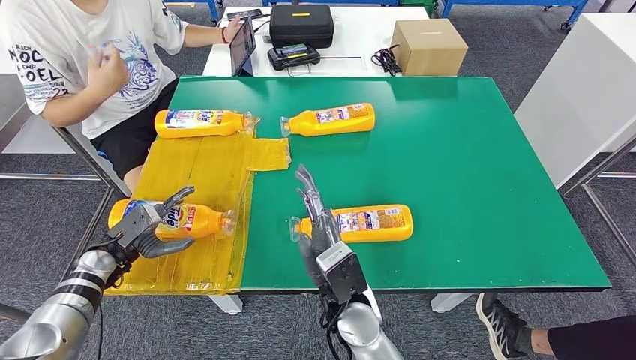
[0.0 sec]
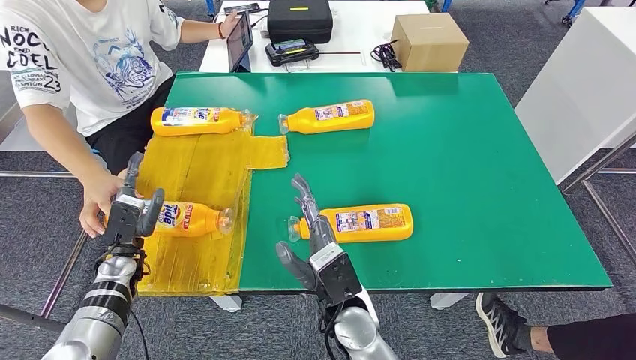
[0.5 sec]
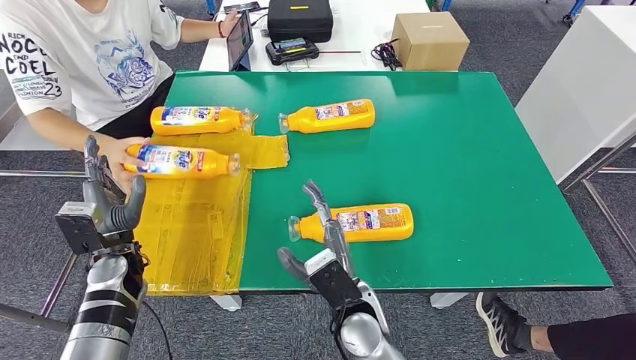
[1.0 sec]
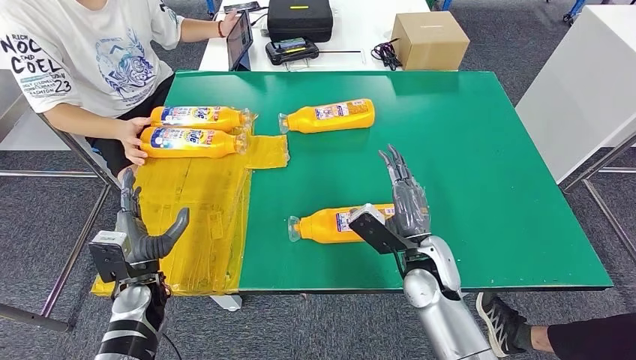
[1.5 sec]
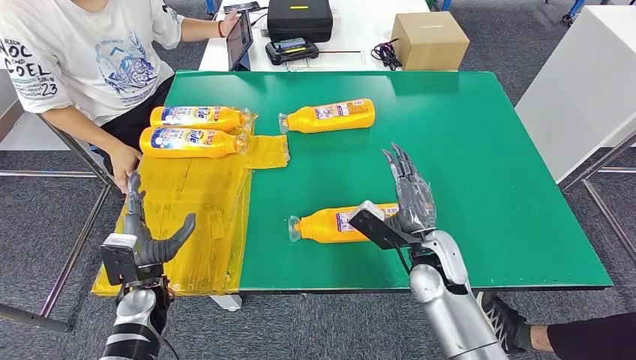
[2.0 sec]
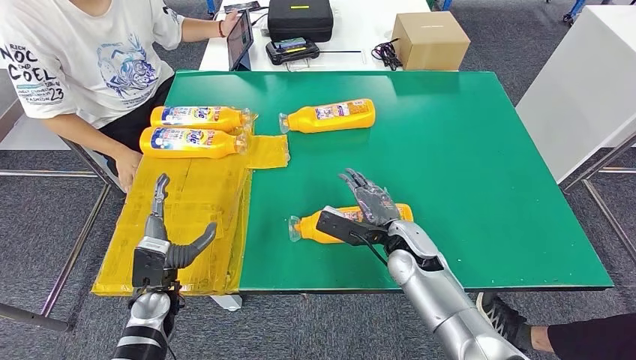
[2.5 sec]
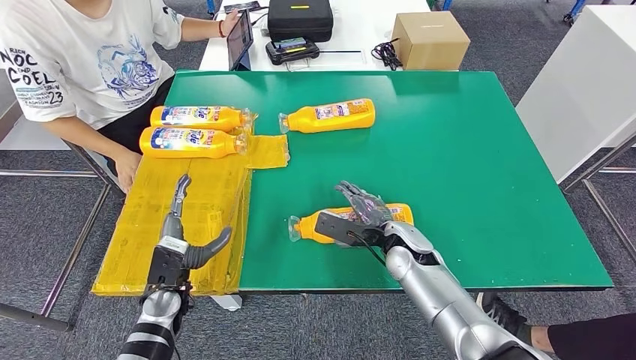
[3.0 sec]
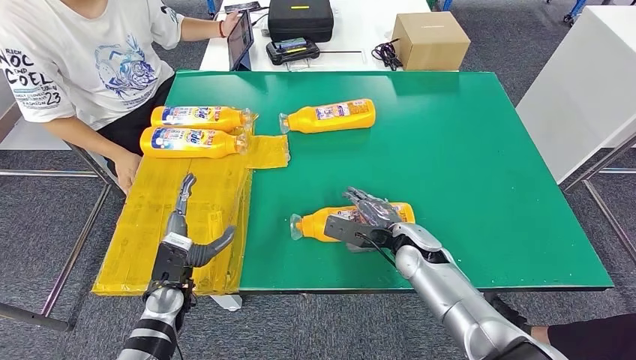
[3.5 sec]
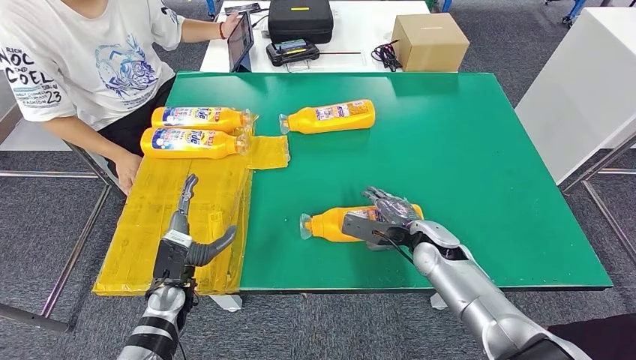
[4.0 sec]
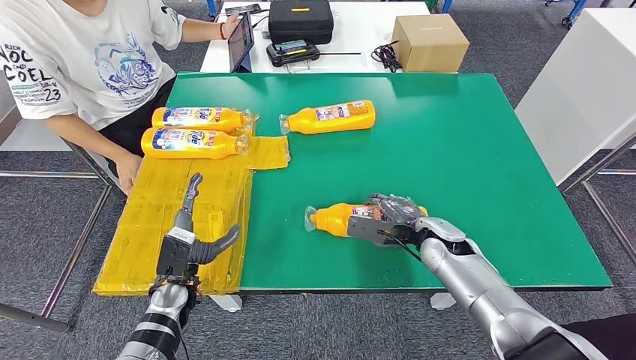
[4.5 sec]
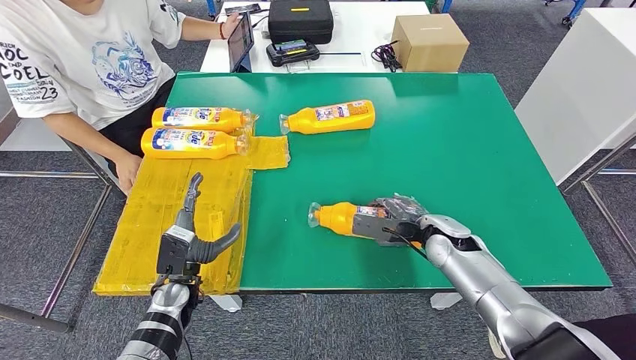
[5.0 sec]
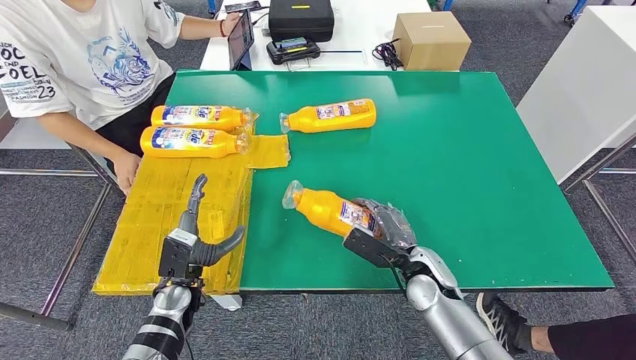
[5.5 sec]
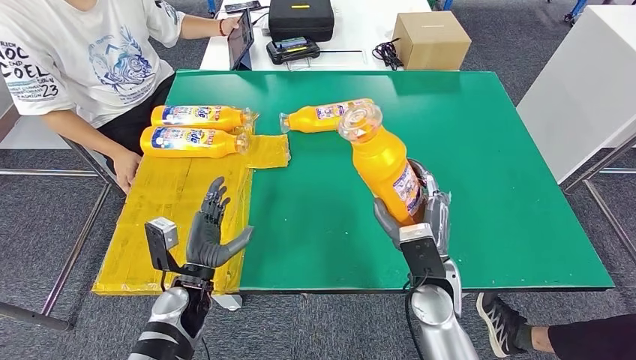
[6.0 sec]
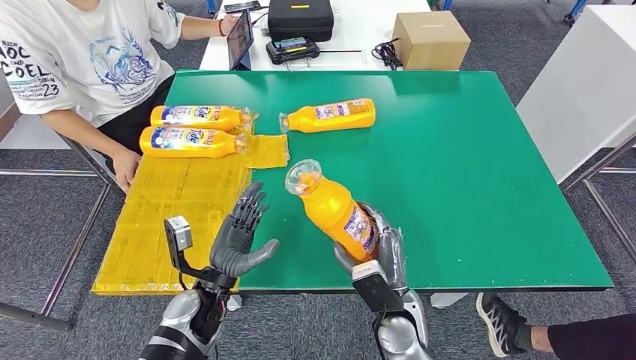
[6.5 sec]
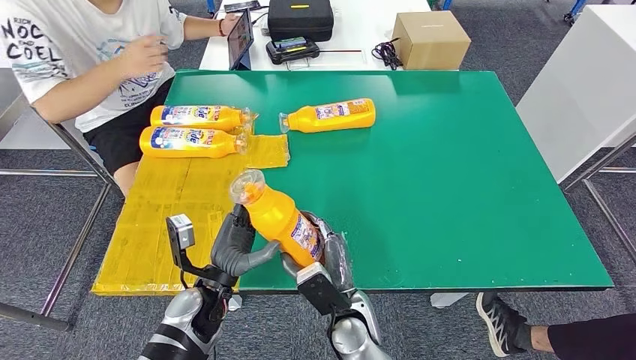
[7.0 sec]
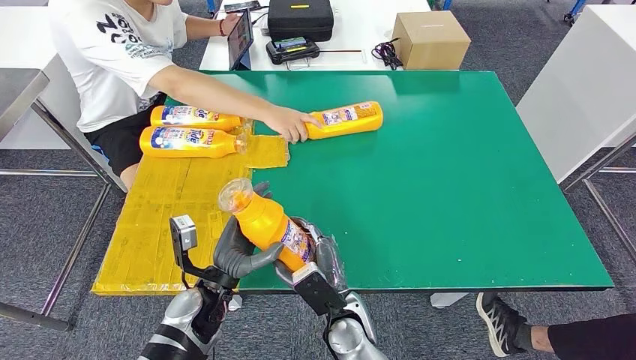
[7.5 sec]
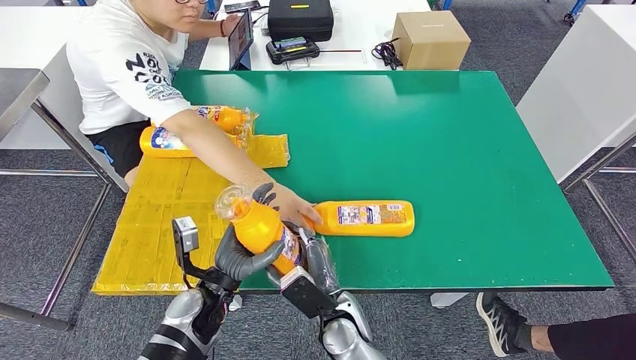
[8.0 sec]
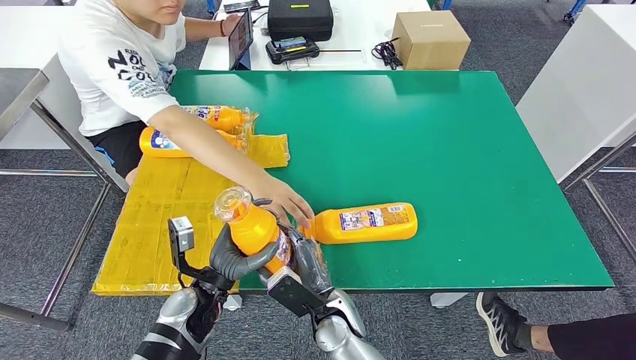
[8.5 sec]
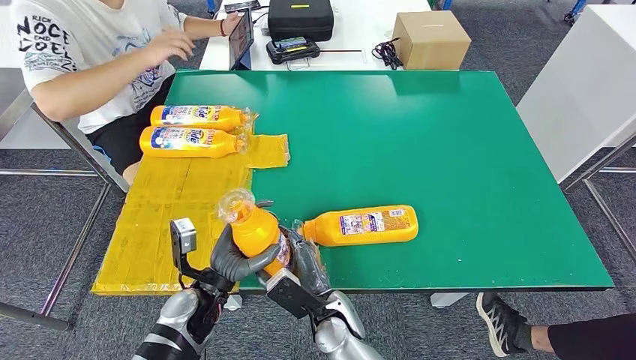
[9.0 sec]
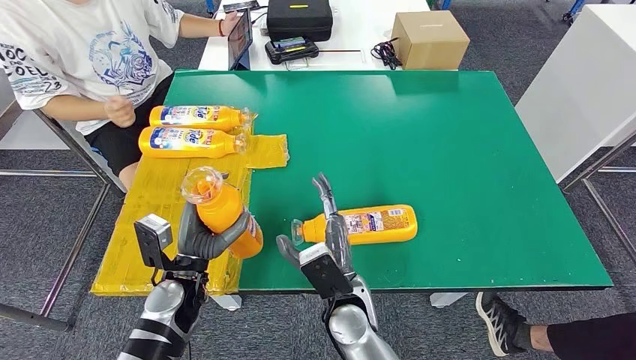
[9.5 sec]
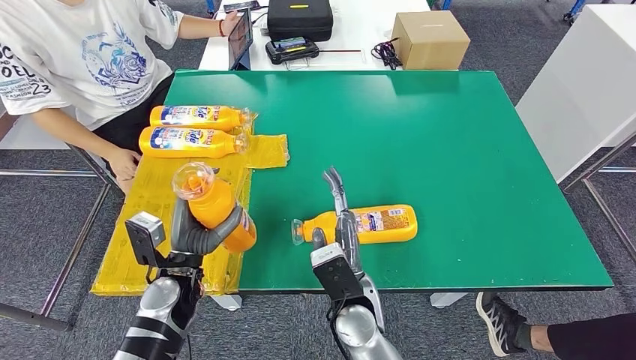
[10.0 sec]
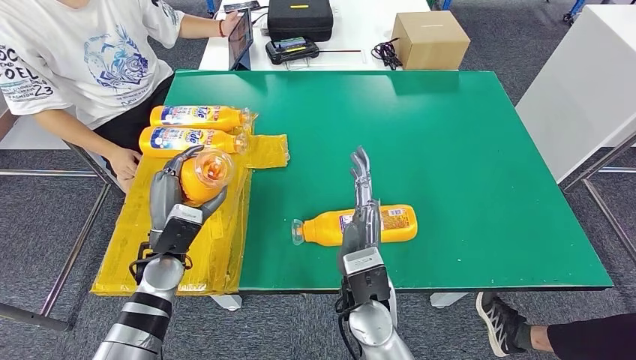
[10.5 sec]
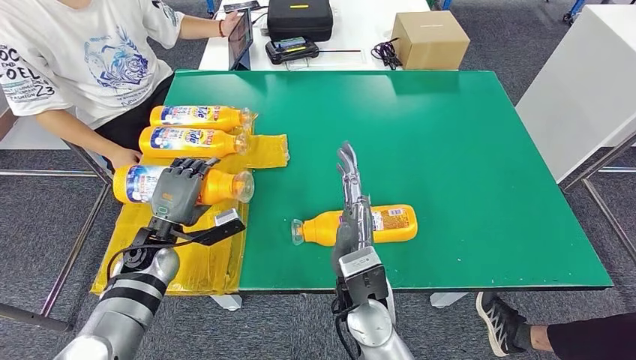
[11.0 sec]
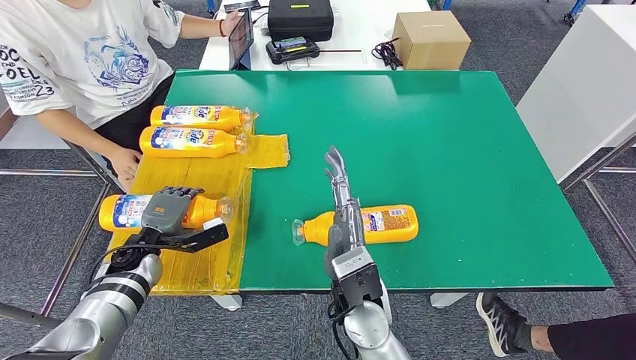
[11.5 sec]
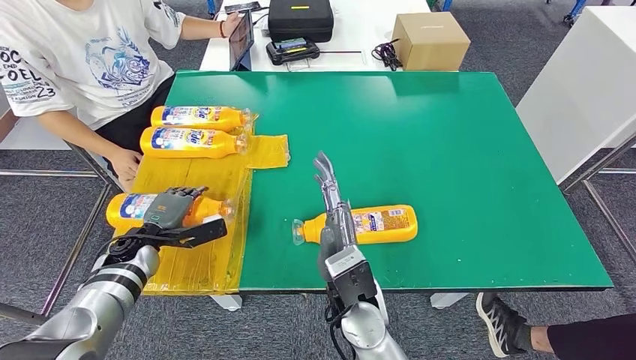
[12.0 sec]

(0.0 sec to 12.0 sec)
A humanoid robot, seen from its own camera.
Step, 0.0 sec - 6.5 sec: Pick up the fast-moving consumer goods bottle from the table.
2.0 sec - 4.0 sec: The right hand shifts by roughly 10 cm.
10.0 sec - 12.0 sec: The left hand shifts some 15 cm to the left and forward.

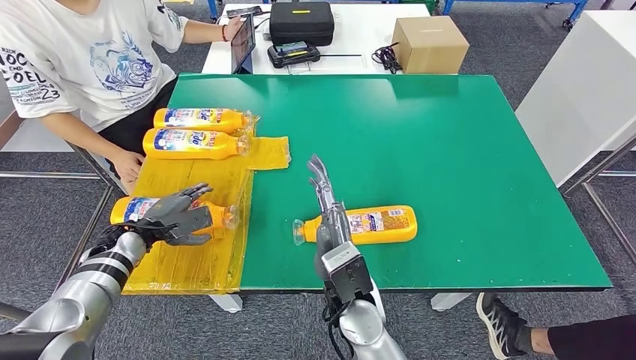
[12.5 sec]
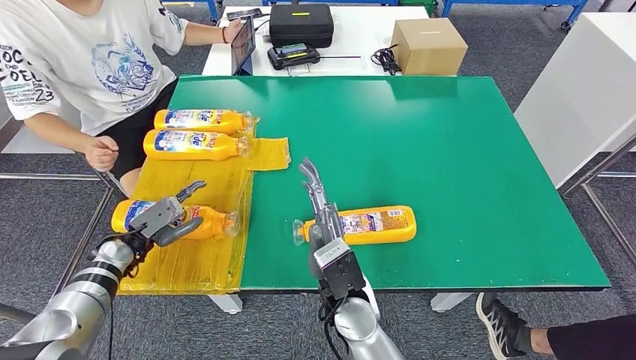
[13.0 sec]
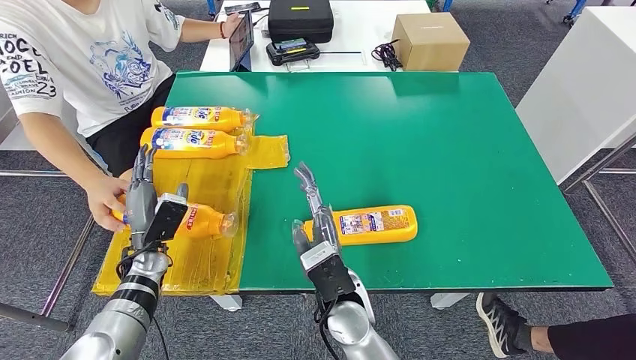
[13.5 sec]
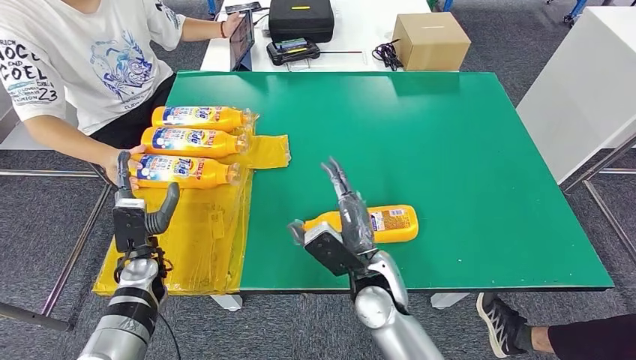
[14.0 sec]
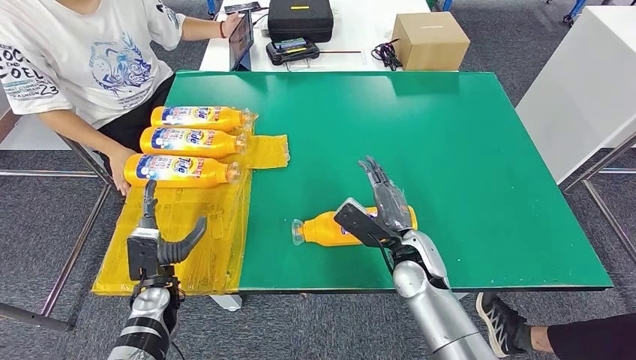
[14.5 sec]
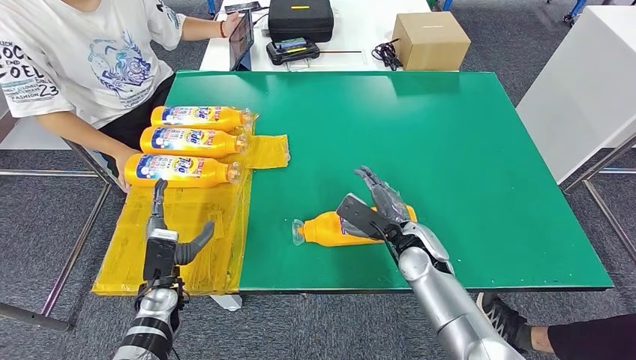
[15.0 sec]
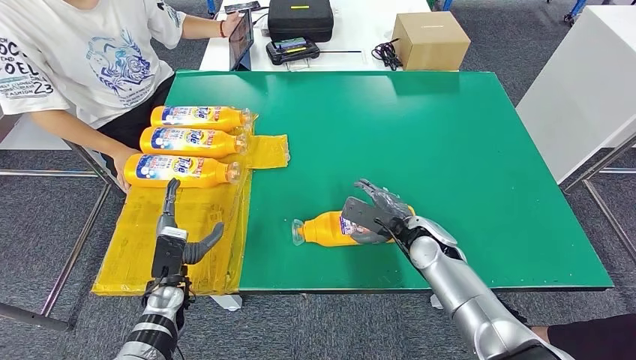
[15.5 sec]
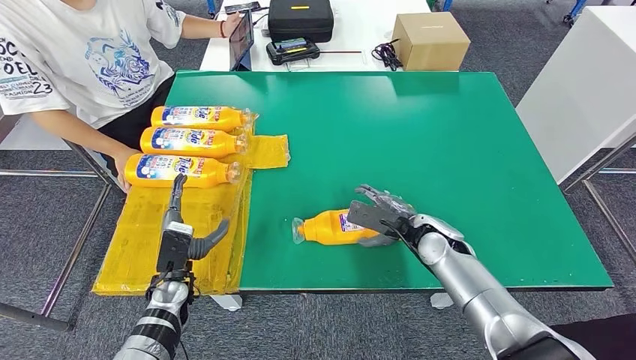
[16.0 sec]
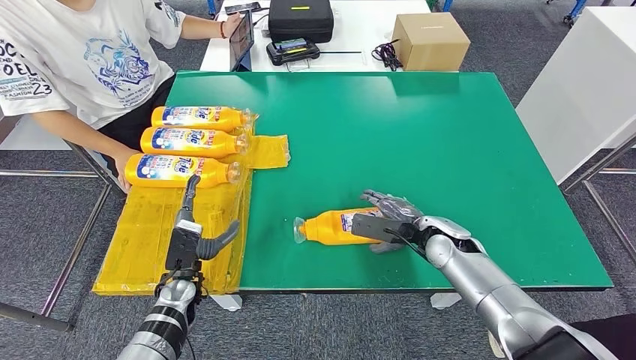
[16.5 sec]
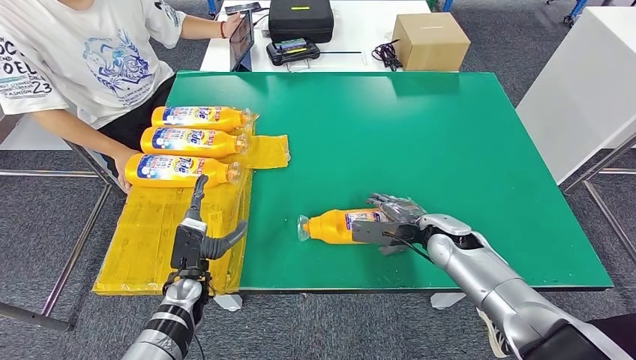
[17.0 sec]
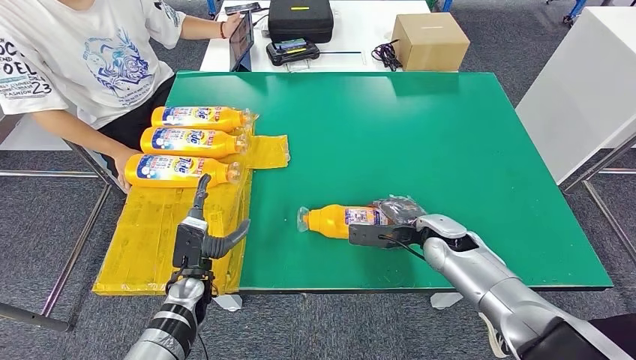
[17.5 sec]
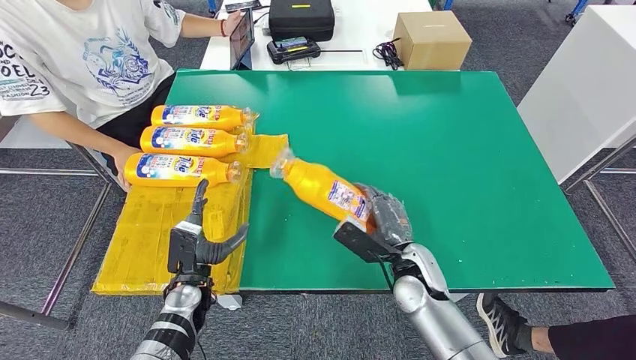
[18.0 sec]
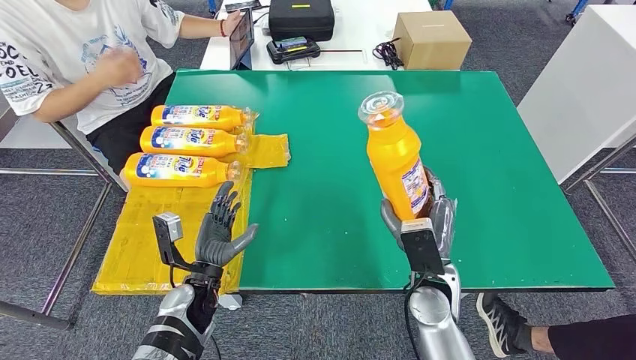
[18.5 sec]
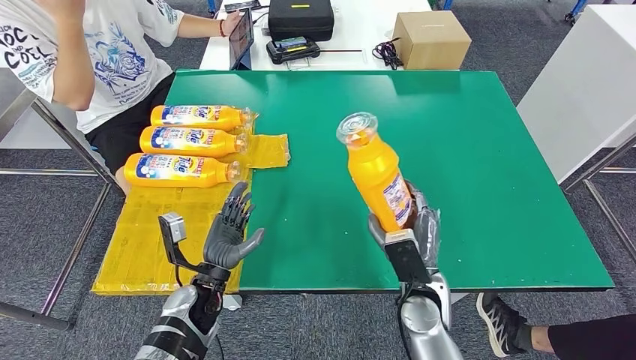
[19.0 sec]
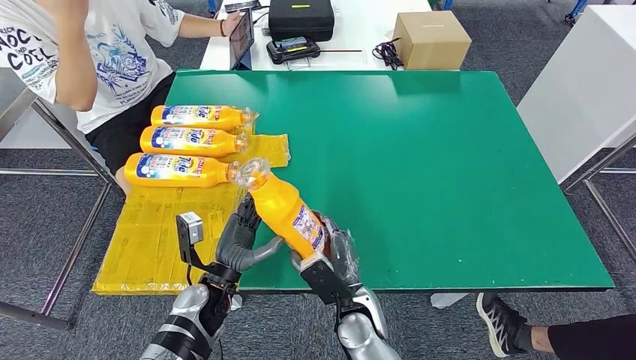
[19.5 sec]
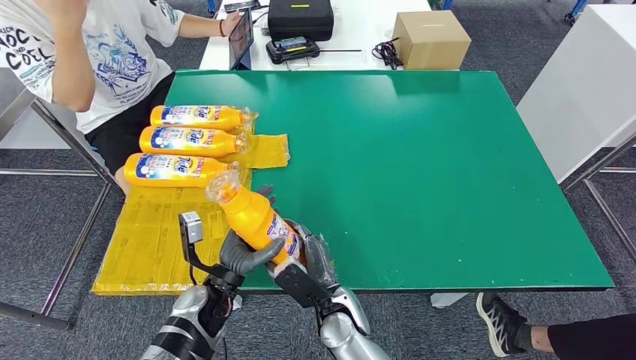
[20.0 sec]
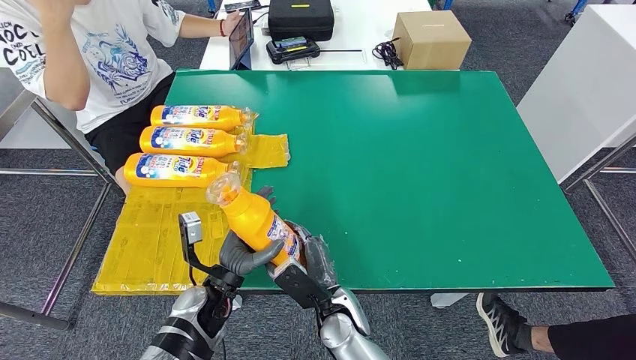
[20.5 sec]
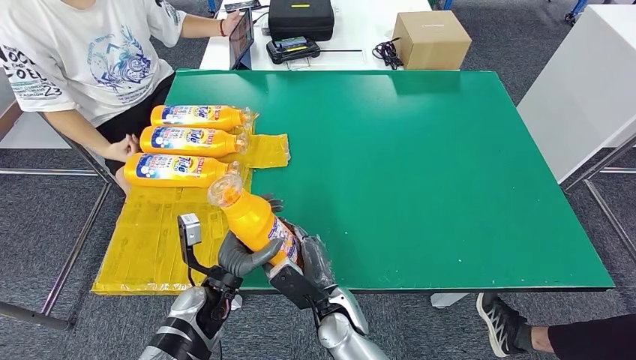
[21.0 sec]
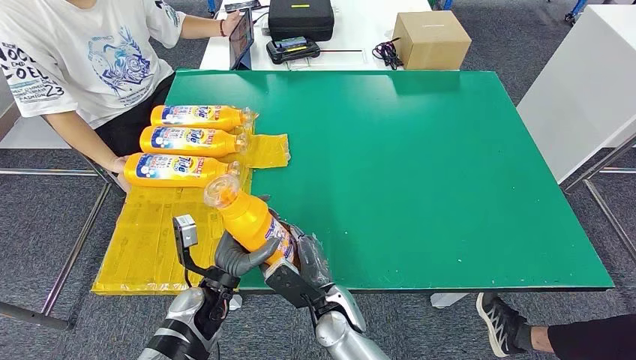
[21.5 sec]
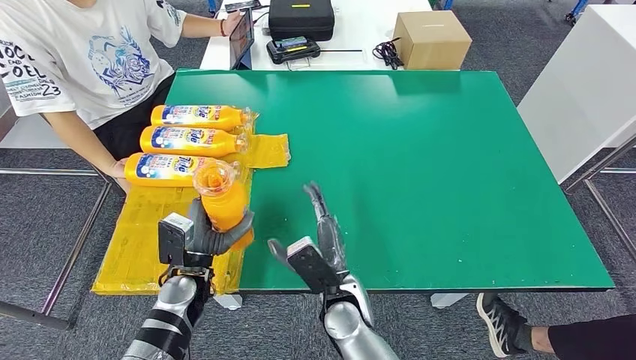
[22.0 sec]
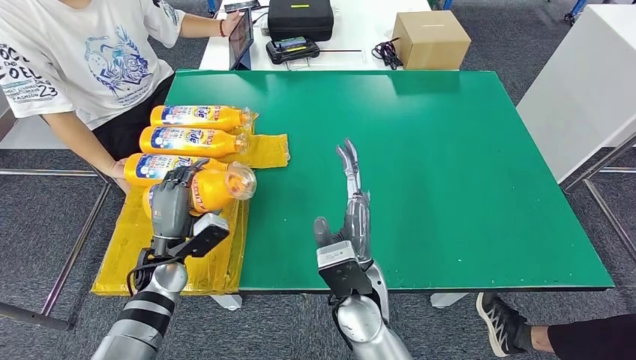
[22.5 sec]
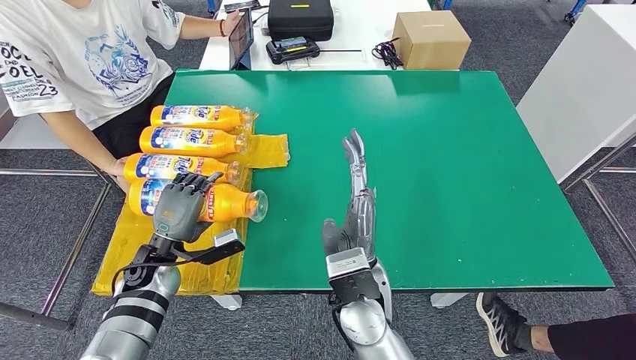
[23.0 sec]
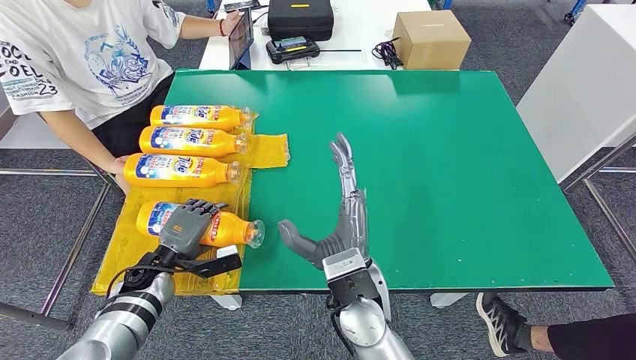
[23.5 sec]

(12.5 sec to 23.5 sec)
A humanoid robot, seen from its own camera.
Step, 13.0 sec - 19.0 sec: Pick up the fast-moving consumer goods bottle from the table.
14.5 sec - 16.0 sec: The right hand heads to the right, covering approximately 5 cm.
16.0 sec - 18.0 sec: The right hand shifts about 10 cm backward and to the left.
20.0 sec - 21.5 sec: The two hands keep their place.
21.5 sec - 23.5 sec: The left hand shifts approximately 15 cm to the left and forward; the right hand moves upward, about 15 cm.
